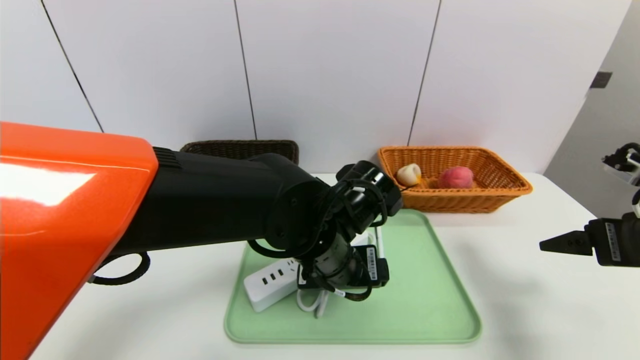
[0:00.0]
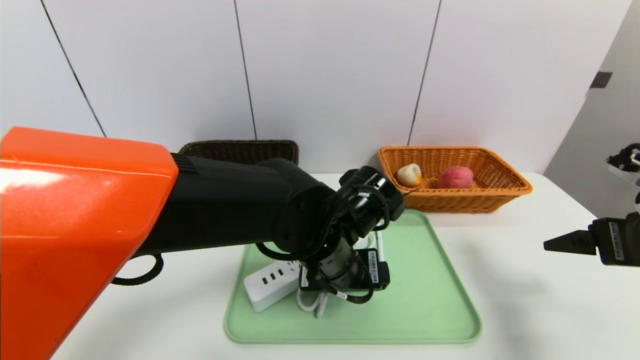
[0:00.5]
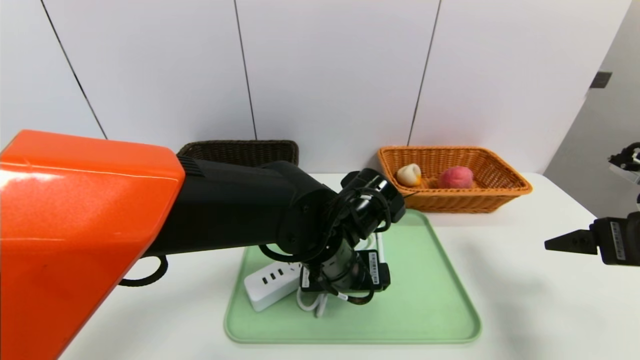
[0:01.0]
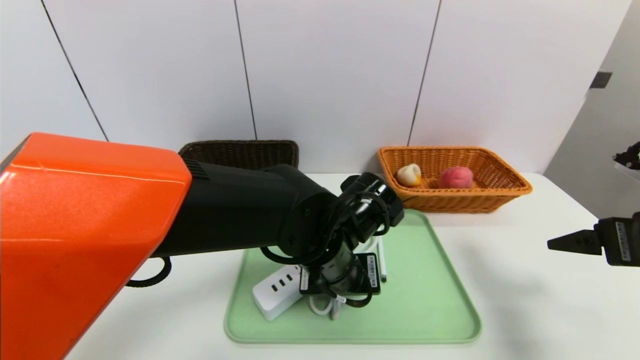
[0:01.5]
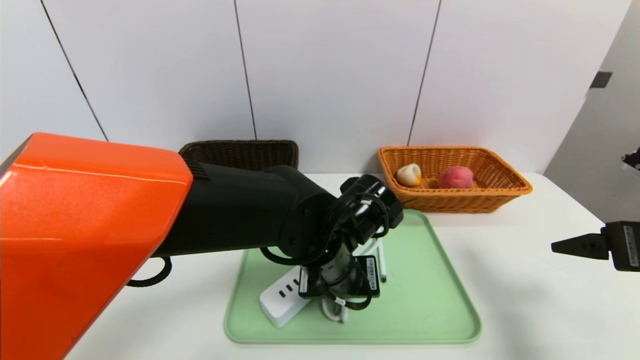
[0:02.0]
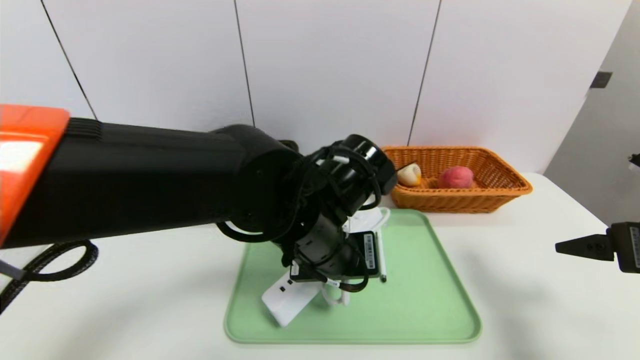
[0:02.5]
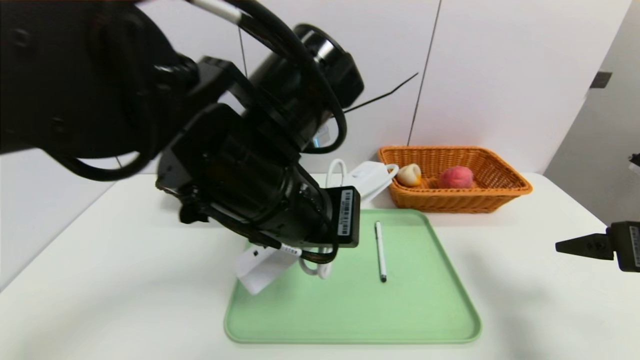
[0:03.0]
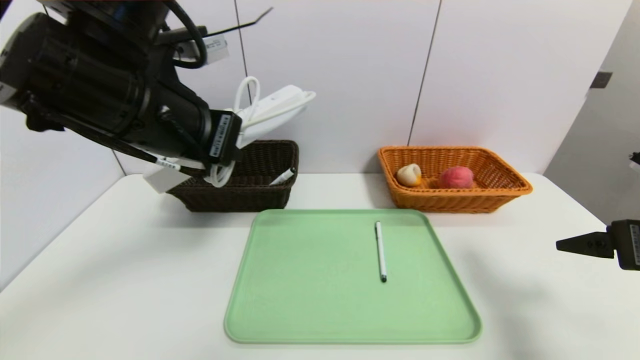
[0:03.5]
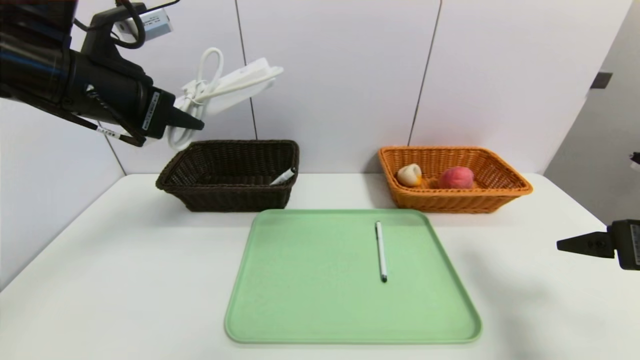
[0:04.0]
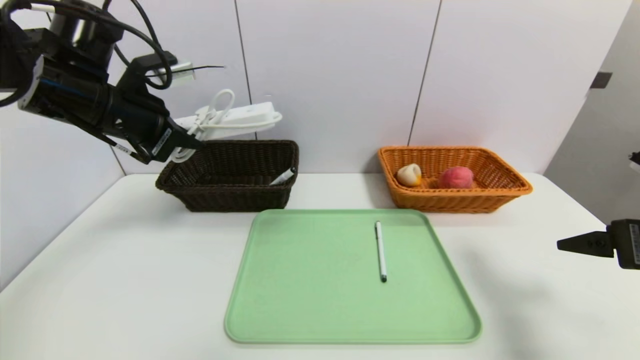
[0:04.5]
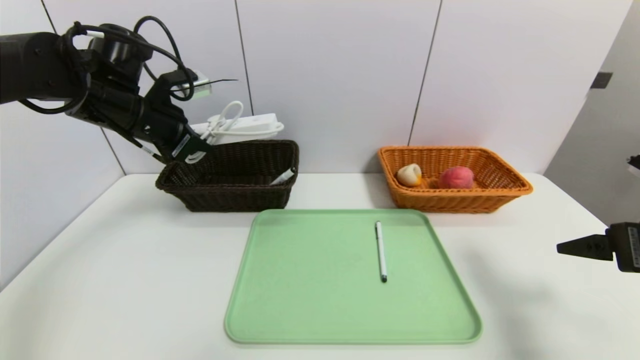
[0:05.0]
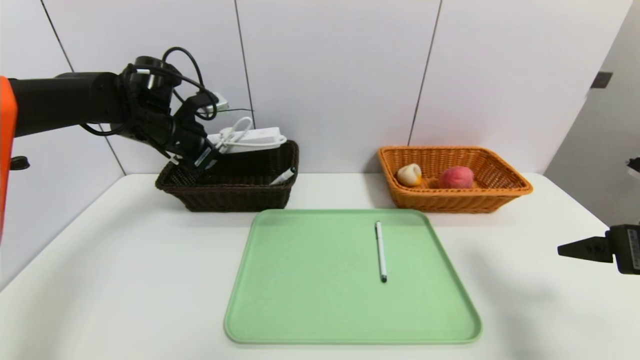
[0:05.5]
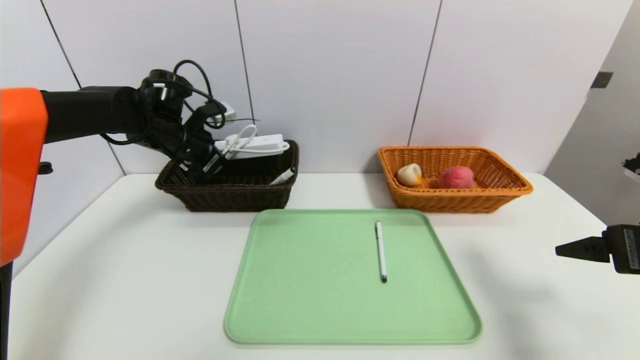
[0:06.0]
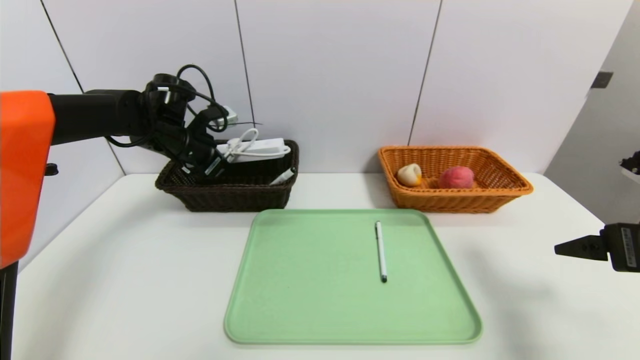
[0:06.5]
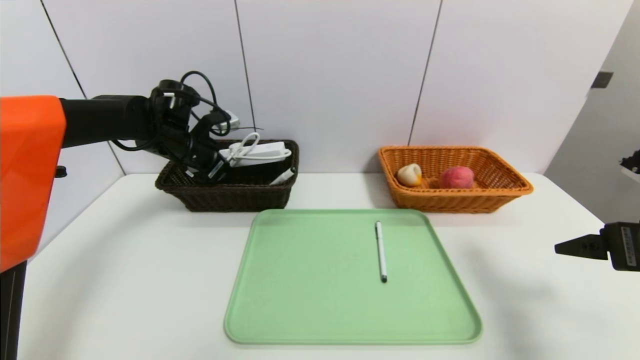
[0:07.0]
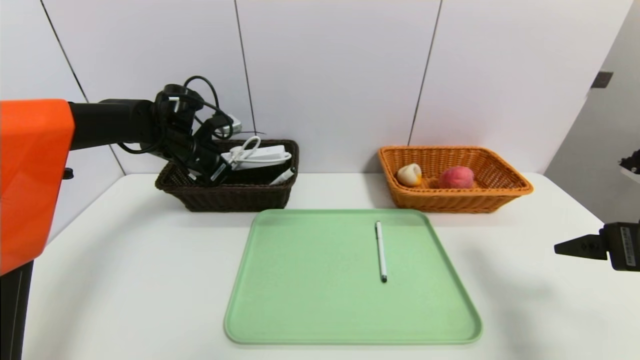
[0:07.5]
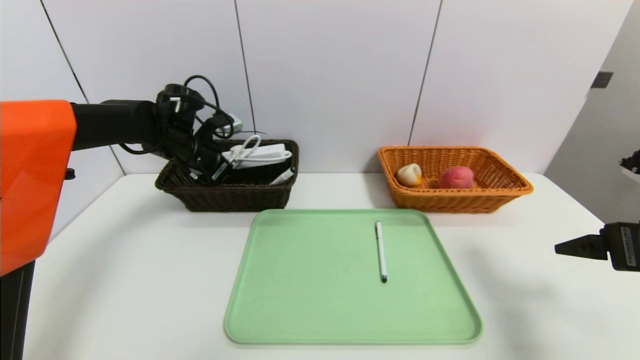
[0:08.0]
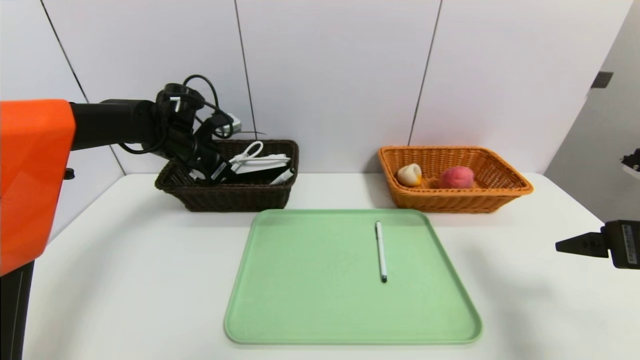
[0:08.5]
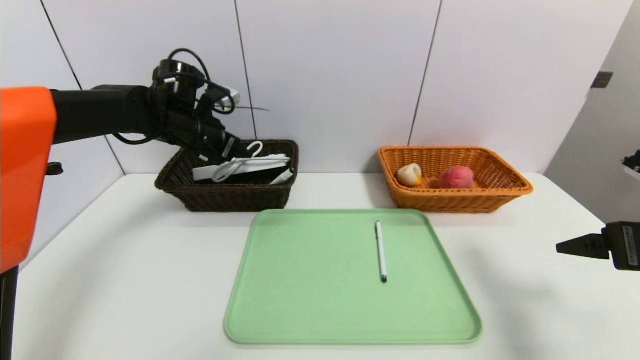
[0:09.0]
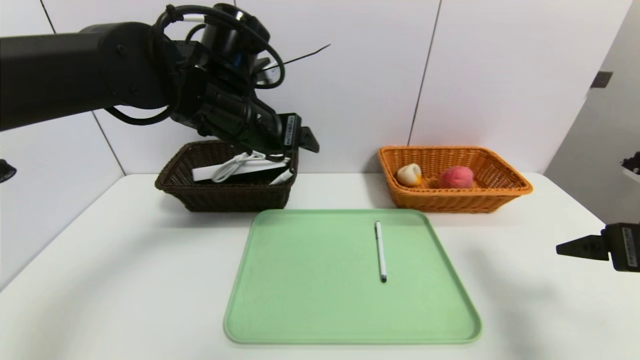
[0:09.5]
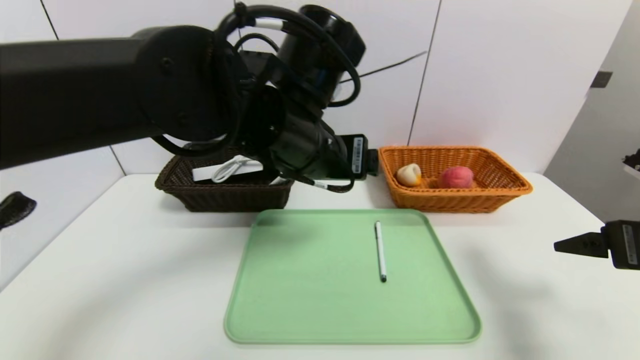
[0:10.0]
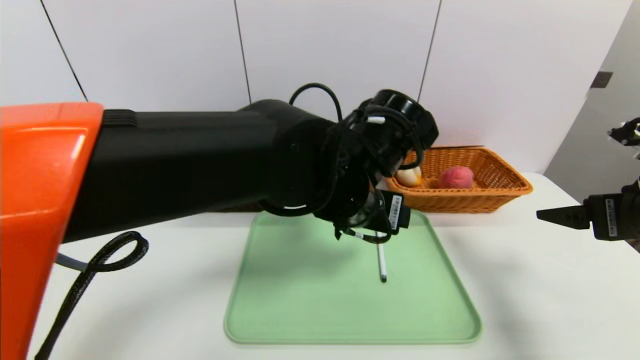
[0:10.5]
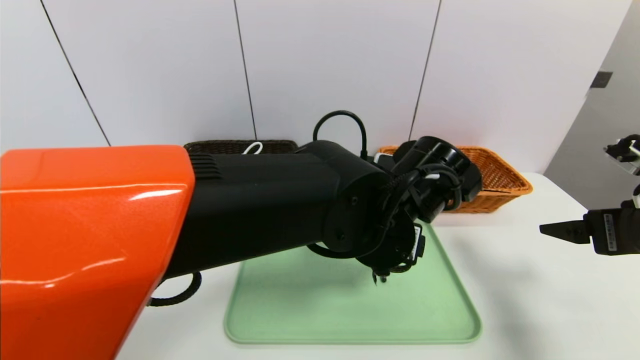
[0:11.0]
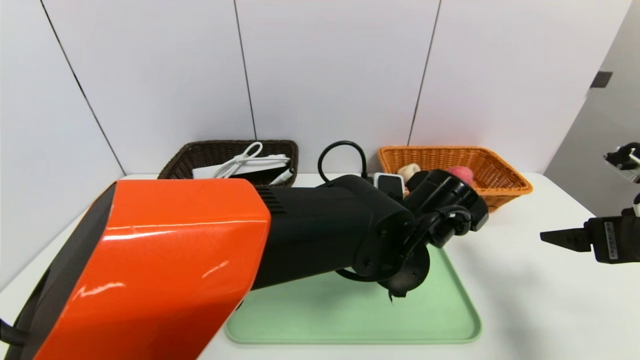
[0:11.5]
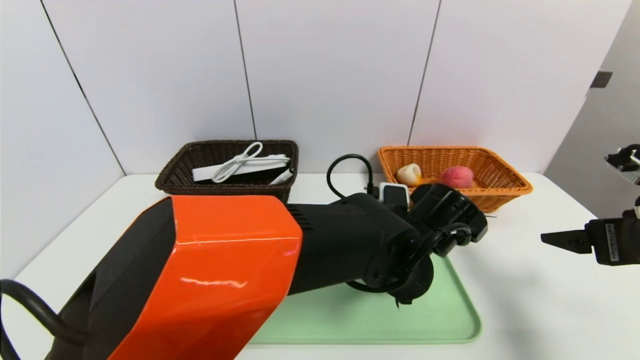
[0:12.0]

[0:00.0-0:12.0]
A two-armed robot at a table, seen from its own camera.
Task of the whole recording: place the food in the right basket with the right gripper, and place the non food items in the left basket with the left gripper.
Step, 0:00.0 to 0:09.0: Grasp the power strip and put it in the left basket.
0:00.0 to 0:02.0: The left gripper closes up.
0:02.0 to 0:04.0: The left gripper is displaced to the left and upward by some 30 cm.
0:04.0 to 0:06.0: The left gripper moves forward and downward, approximately 20 cm.
0:06.0 to 0:08.0: The grippers stay close to where they were, moving slightly.
0:08.0 to 0:10.0: The left gripper moves to the right, backward and upward, approximately 30 cm, and opens up.
0:10.0 to 0:12.0: The left gripper goes about 20 cm downward and to the right.

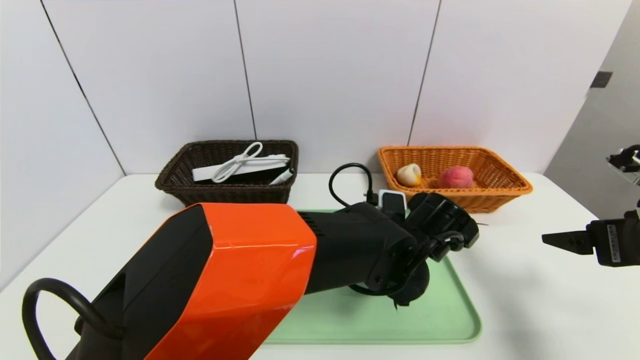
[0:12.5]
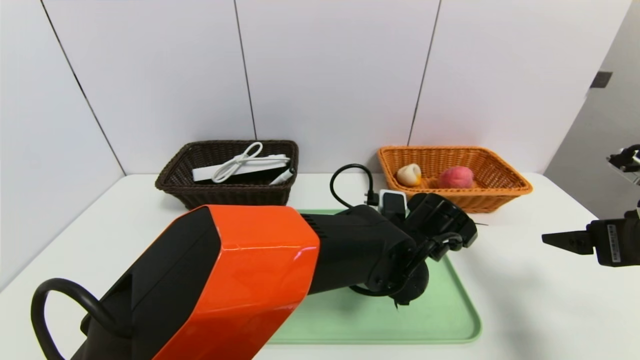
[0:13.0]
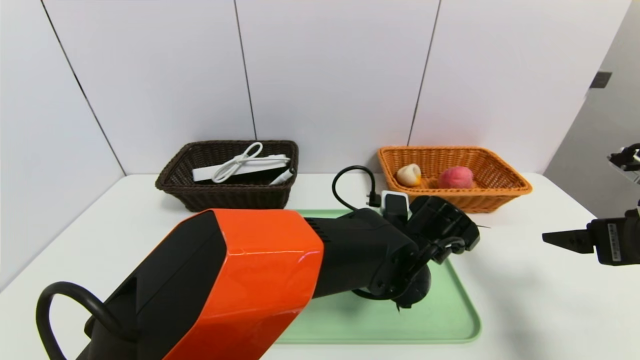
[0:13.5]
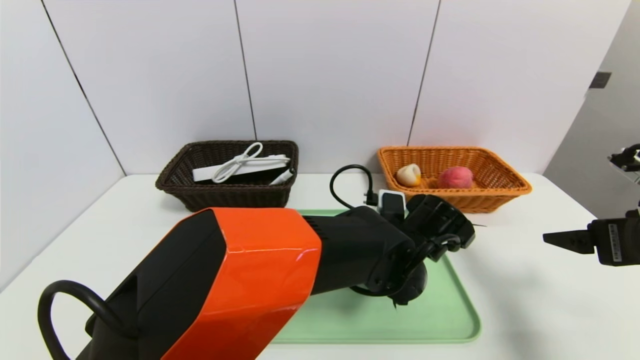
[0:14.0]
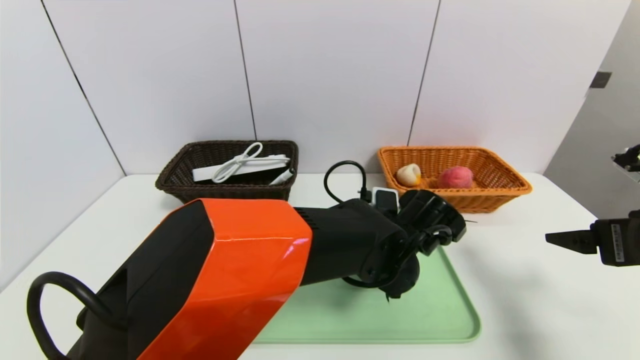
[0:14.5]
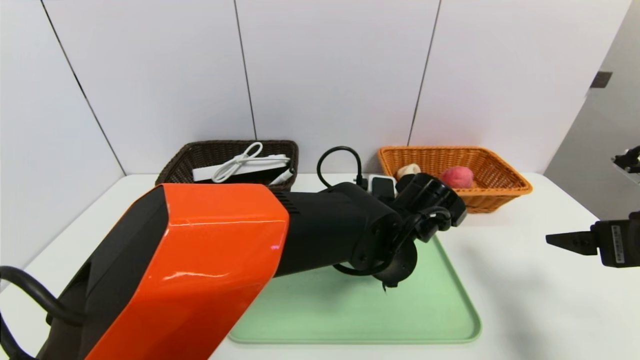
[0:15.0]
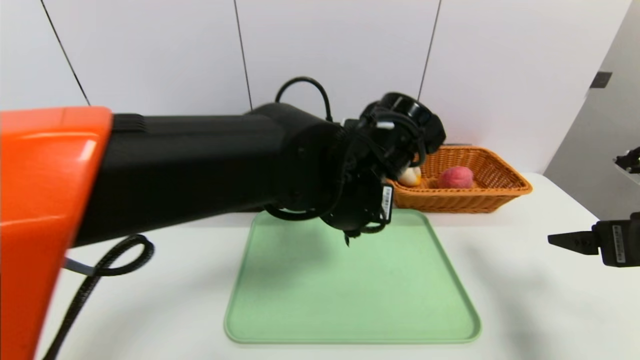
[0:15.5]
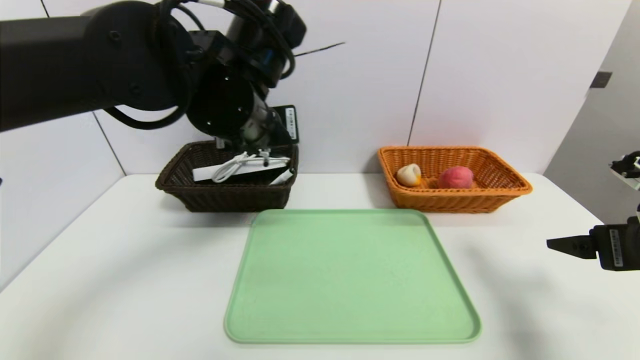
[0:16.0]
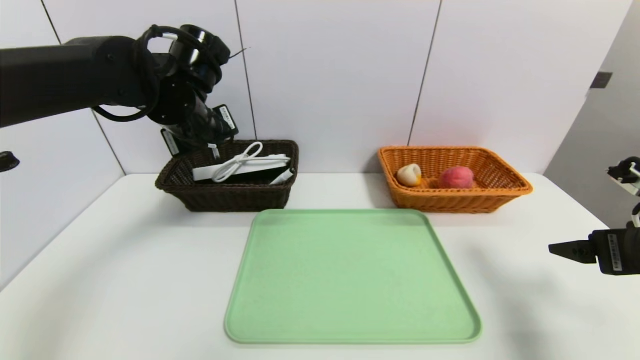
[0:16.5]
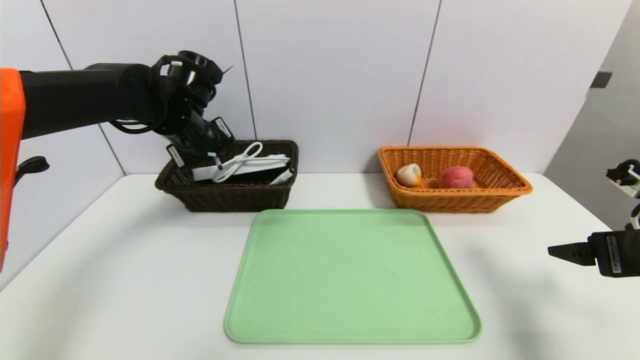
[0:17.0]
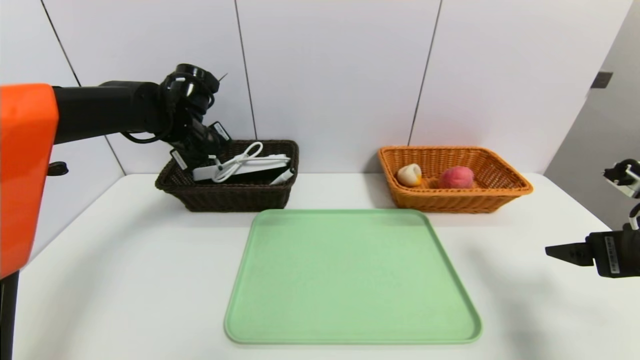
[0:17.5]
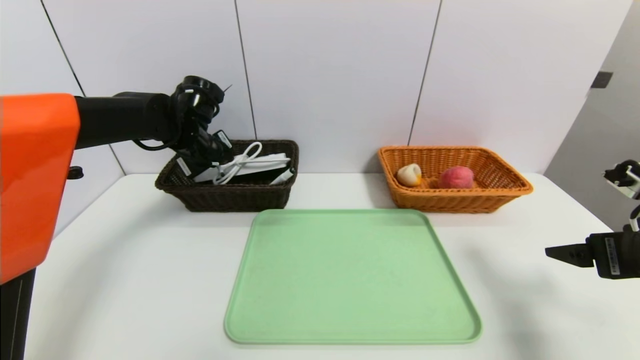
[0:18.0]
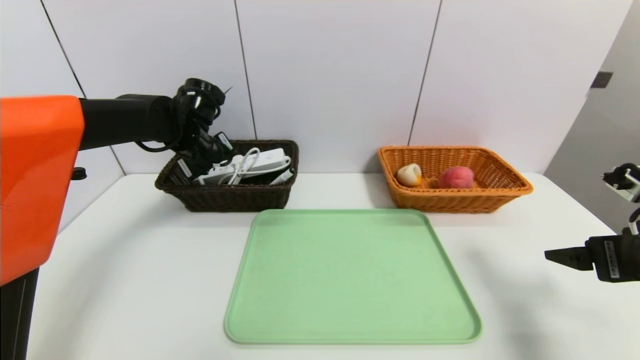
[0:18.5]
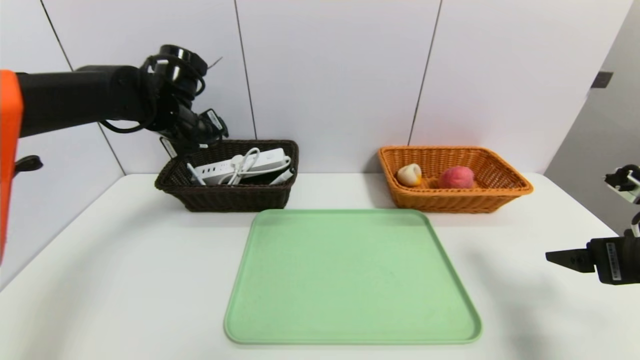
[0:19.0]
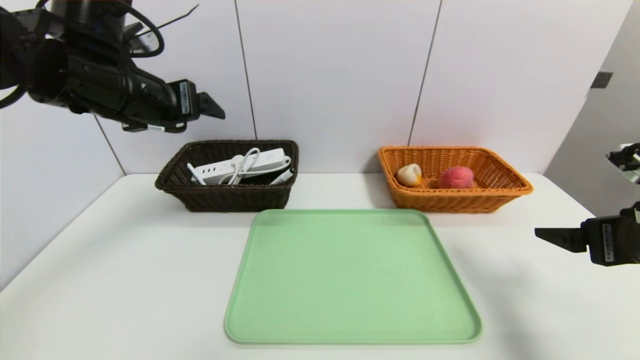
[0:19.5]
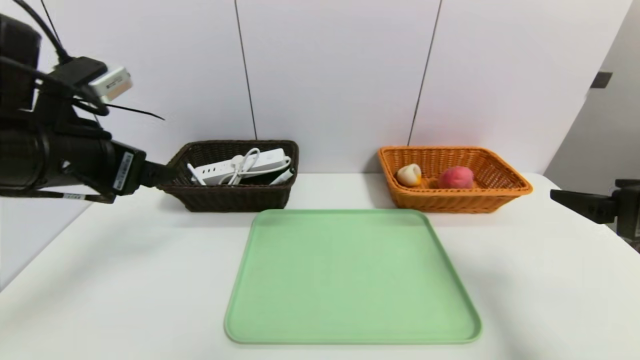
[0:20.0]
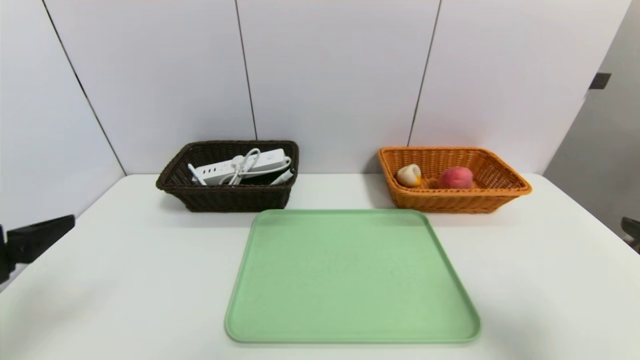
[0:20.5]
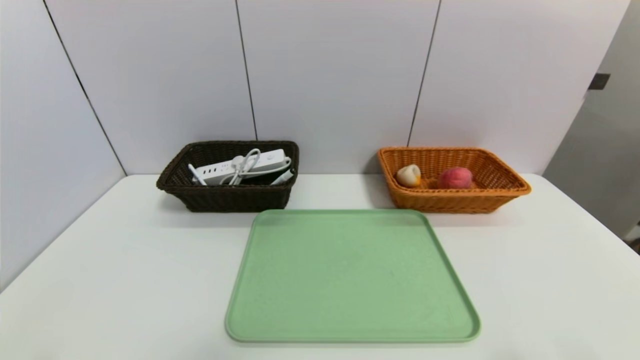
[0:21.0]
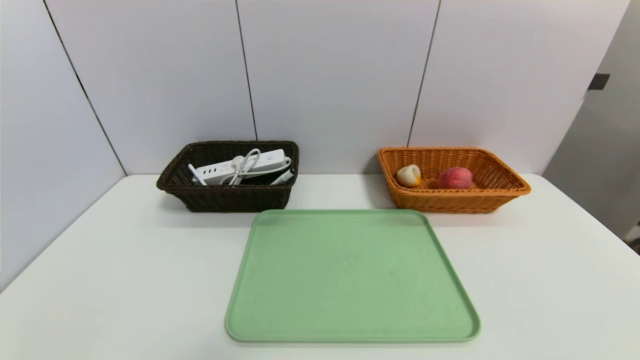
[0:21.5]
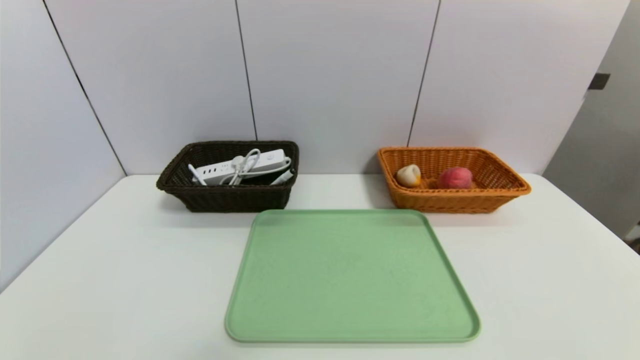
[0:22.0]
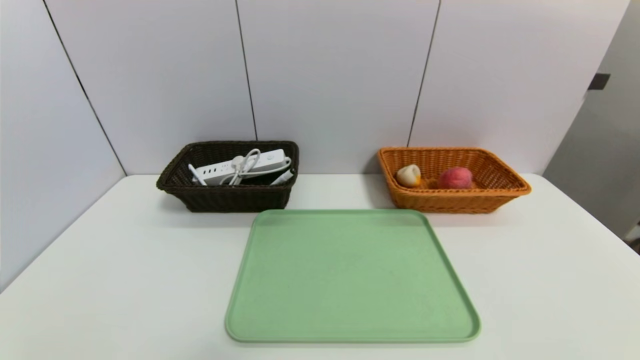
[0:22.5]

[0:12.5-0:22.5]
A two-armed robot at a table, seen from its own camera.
Task of the whole recording: place the food in the right basket with the right gripper, and place the non food items in the left basket with the left gripper.
Step, 0:12.5 to 0:18.5: Grasp the ballpoint pen and put it in the left basket.
0:12.5 to 0:14.5: The left gripper closes its fingers.
0:14.5 to 0:16.5: The left gripper travels to the left and upward by some 30 cm.
0:16.5 to 0:18.5: The left gripper shifts about 10 cm forward and downward, and opens.
0:18.5 to 0:20.5: The right gripper is displaced backward by roughly 10 cm; the left gripper shifts about 35 cm backward, and opens.
0:20.5 to 0:22.5: Both grippers move downward and backward, some 20 cm.
